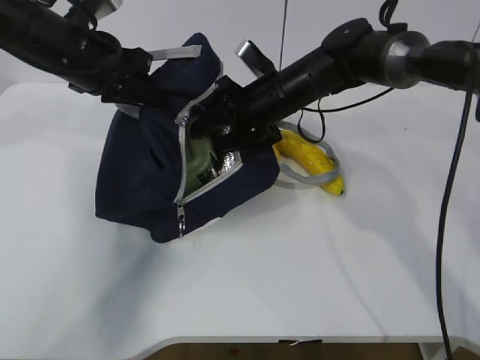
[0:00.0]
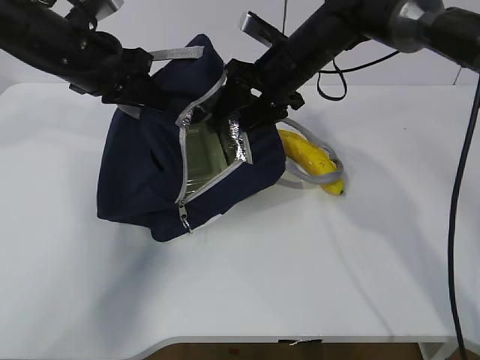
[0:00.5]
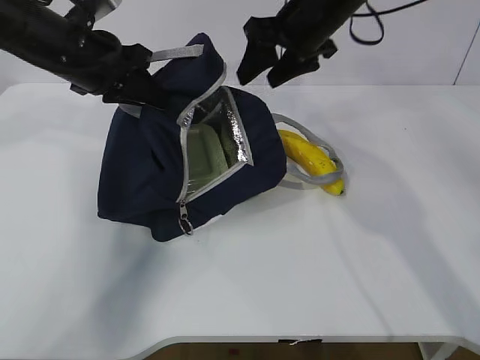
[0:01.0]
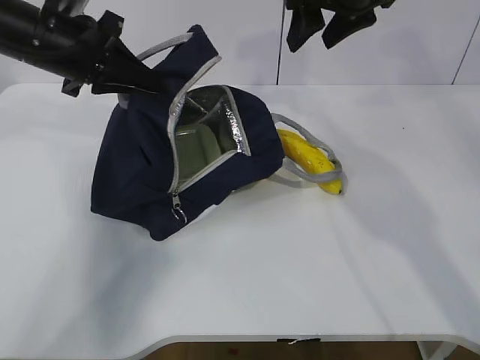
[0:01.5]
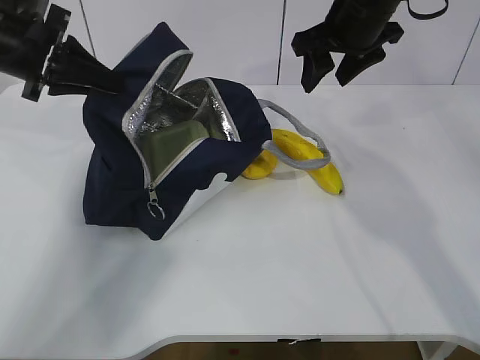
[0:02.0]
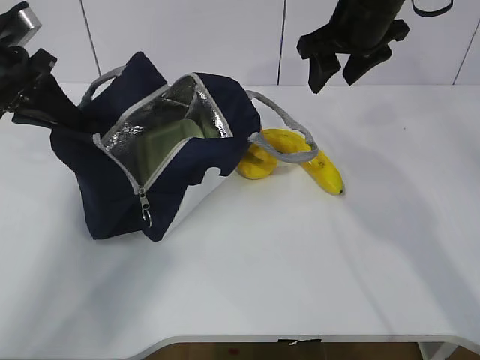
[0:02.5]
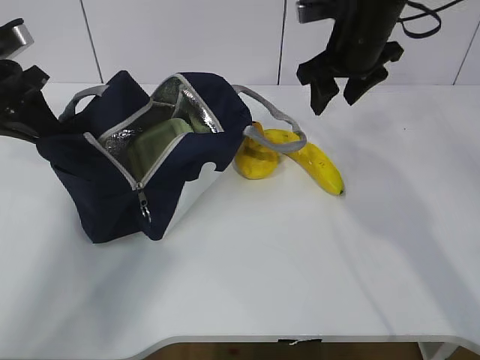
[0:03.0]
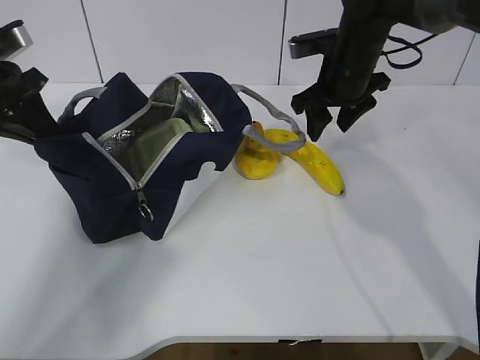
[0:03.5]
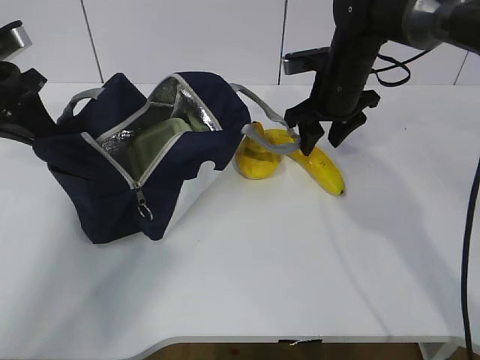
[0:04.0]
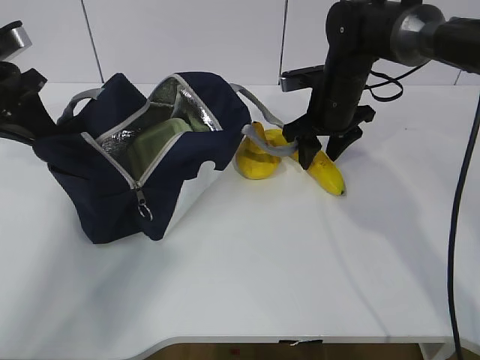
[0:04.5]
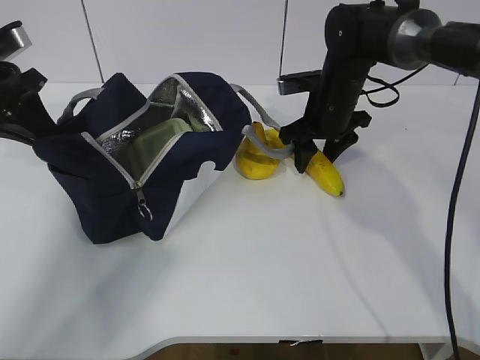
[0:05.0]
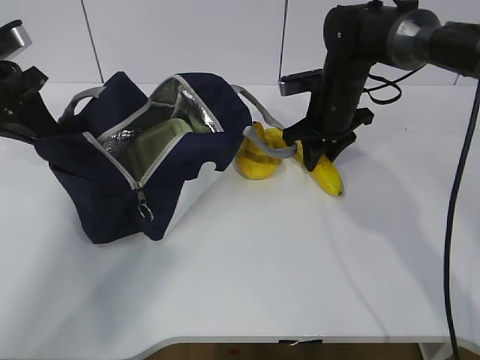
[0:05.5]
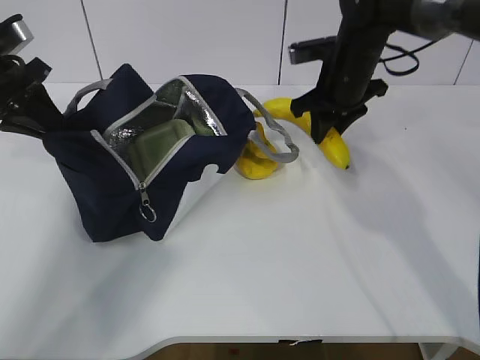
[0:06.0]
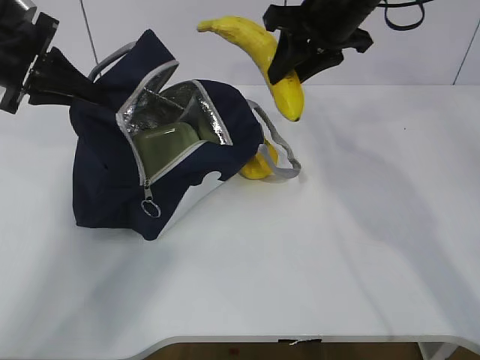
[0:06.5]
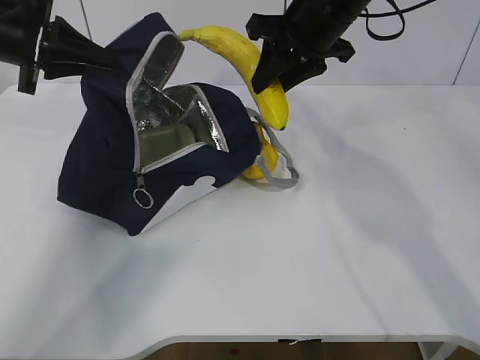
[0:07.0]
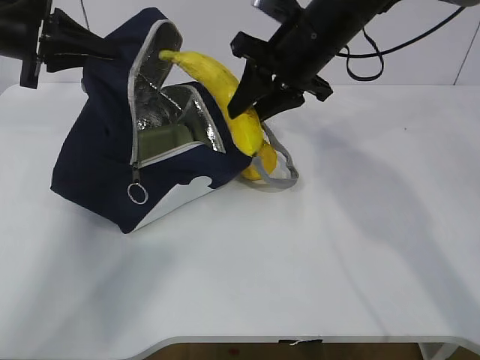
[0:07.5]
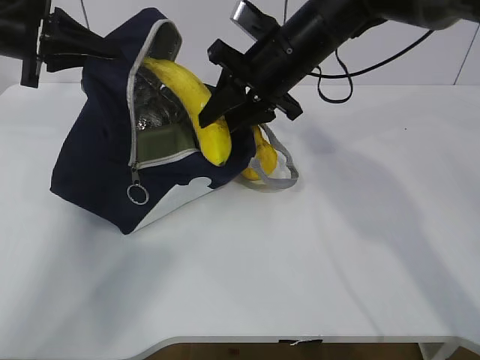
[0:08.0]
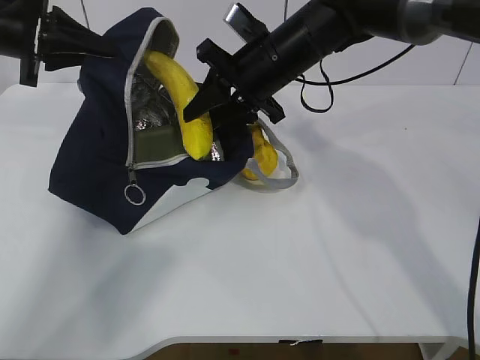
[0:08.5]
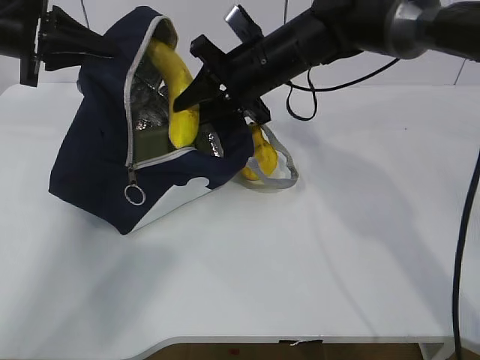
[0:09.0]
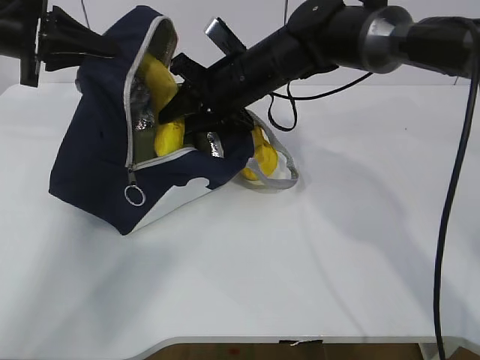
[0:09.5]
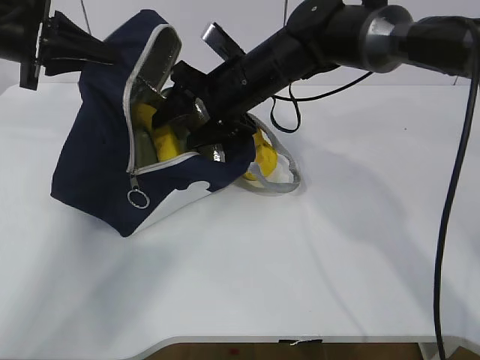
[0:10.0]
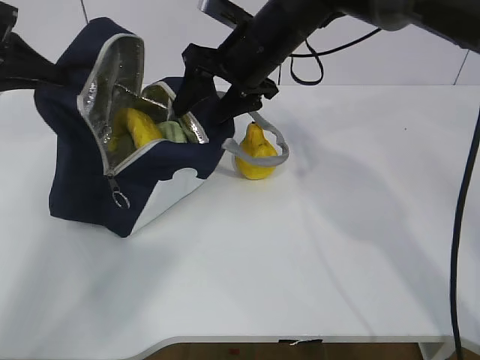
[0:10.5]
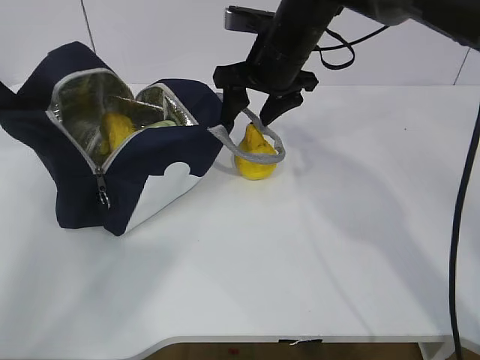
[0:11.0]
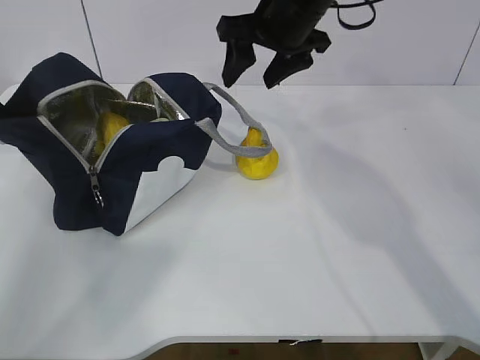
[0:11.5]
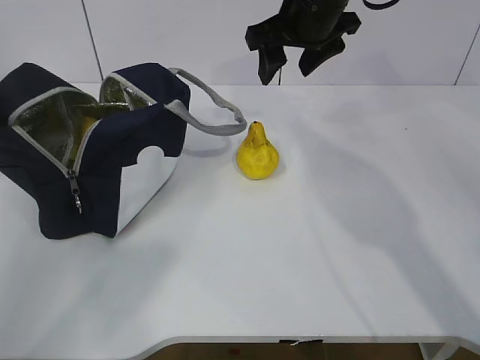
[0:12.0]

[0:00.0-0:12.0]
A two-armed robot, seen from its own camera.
Step, 0:02.0 to 0:05.0: Place it into the bag with your right hand.
Step, 0:05.5 to 0:09.5: Grab the pear with your right hand.
Step, 0:10.0 to 0:11.5: Secure the lunch bag with your left hand.
0:00.0 to 0:02.0: The right gripper is displaced upward and to the right by approximately 15 cm; the left gripper shifts roughly 5 cm to the left.
0:02.0 to 0:04.0: The right gripper is displaced downward by about 10 cm. The left gripper moves some 5 cm.
0:04.0 to 0:06.0: The right gripper closes.
0:06.0 to 0:08.0: The right gripper heads to the left, covering roughly 10 cm.
0:08.0 to 0:10.0: The right gripper moves about 5 cm, and opens up.
0:10.0 to 0:12.0: The right gripper travels upward and to the right by approximately 10 cm. The left gripper goes some 15 cm to the left.

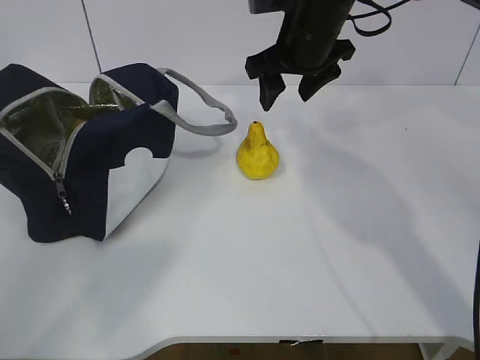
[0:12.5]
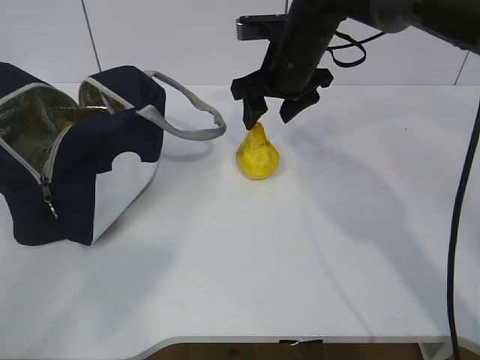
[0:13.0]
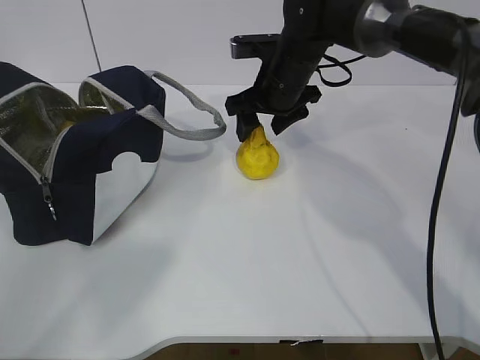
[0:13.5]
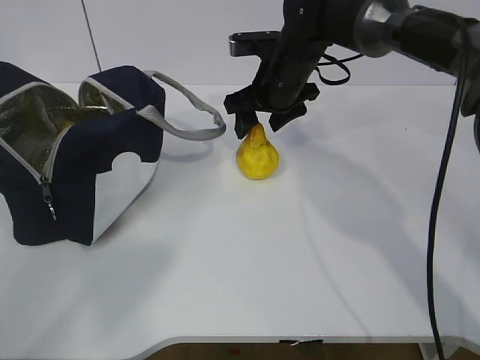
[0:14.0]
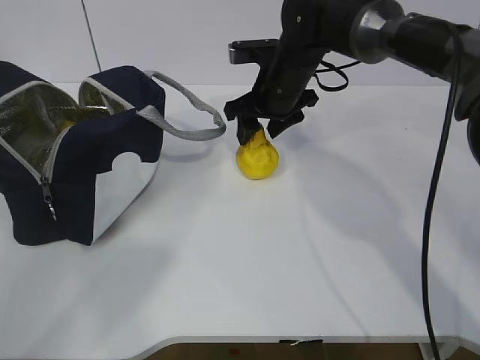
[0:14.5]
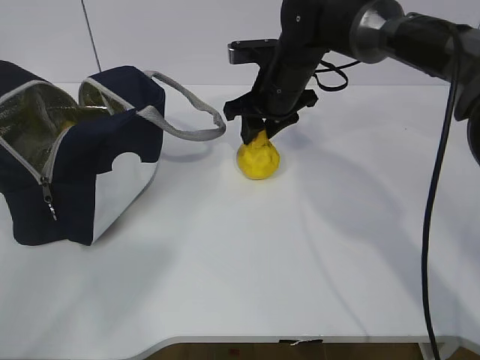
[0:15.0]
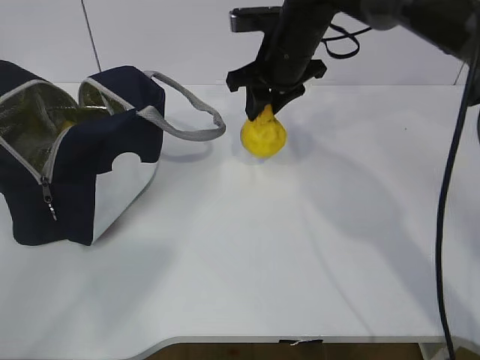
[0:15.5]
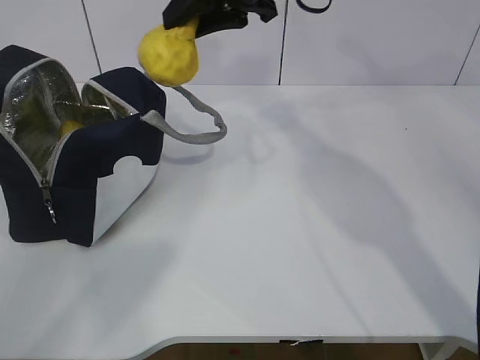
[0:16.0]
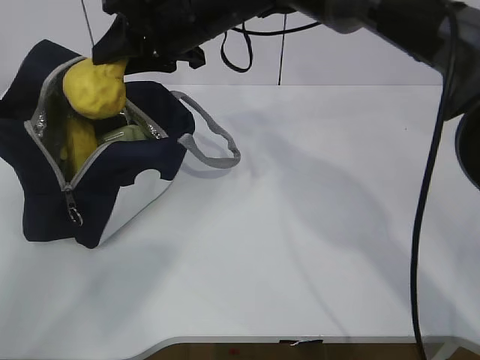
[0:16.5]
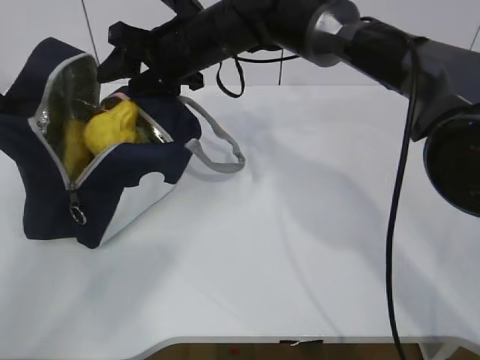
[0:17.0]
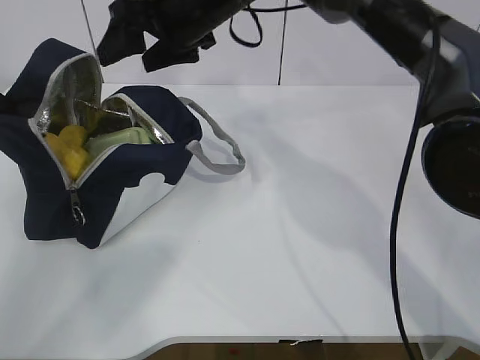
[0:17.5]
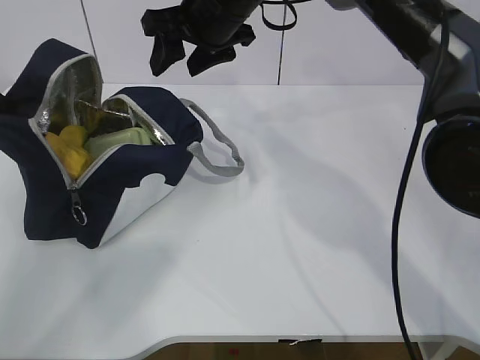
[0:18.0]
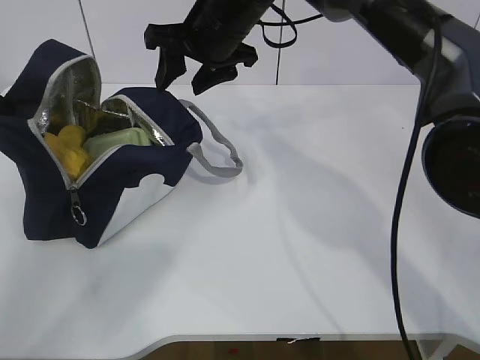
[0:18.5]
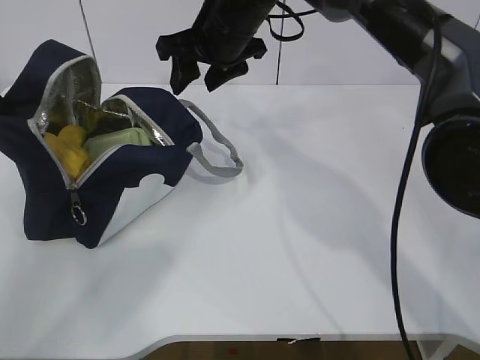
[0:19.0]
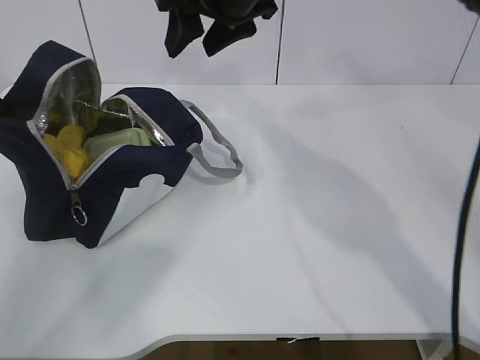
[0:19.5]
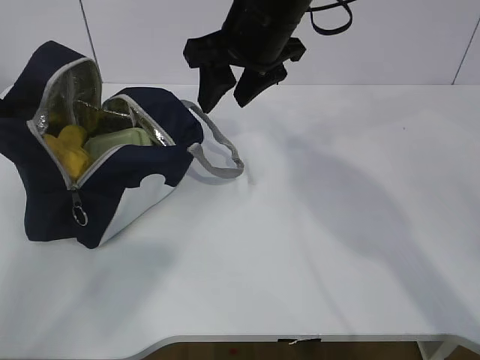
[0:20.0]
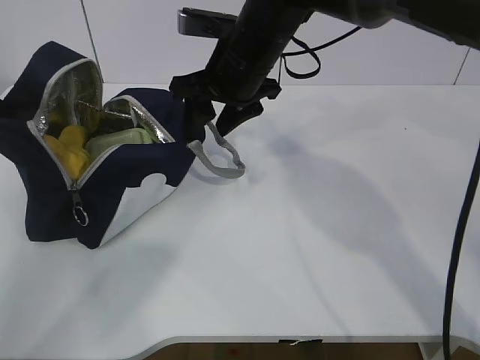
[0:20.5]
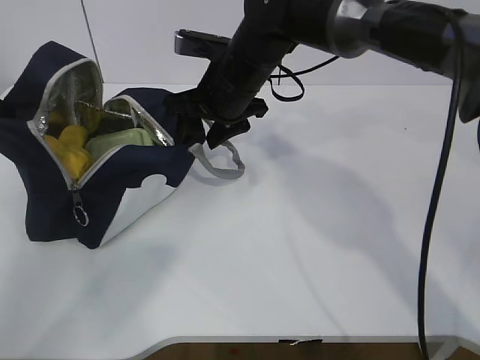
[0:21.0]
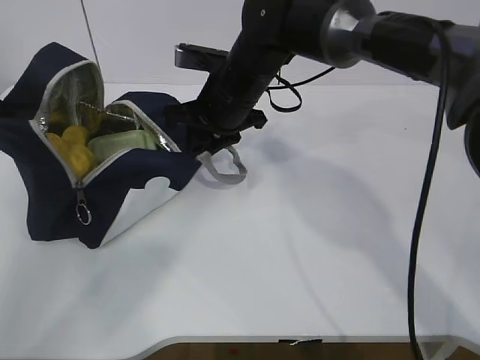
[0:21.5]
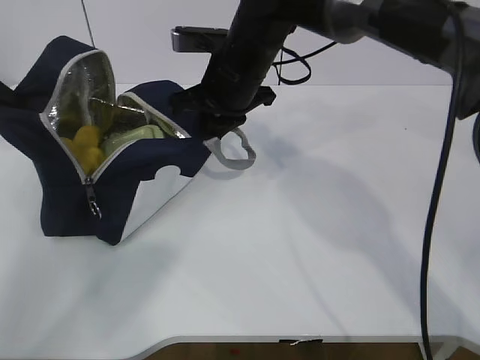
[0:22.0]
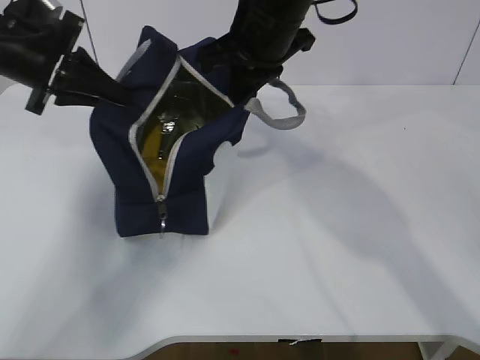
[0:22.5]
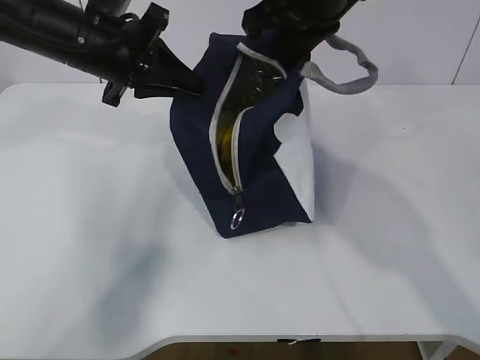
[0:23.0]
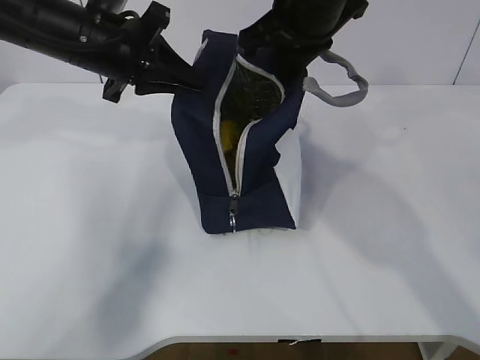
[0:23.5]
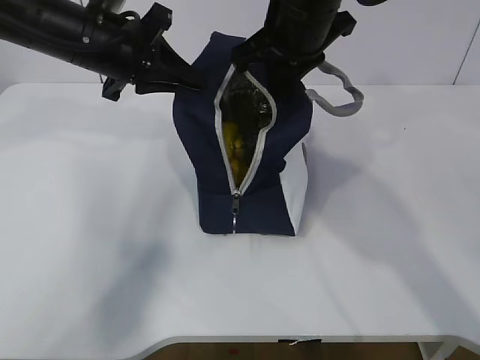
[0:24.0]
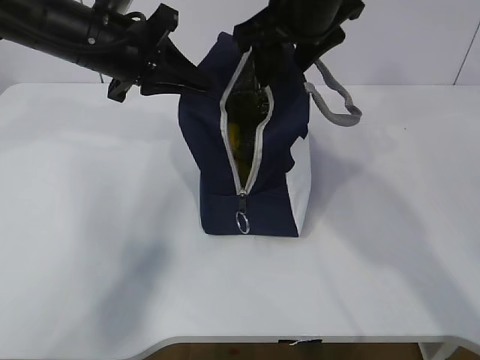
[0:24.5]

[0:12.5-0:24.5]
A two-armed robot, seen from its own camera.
Step, 0:12.5 to 0:15.0: Grab the lunch bag with your right hand.
Step, 0:15.5 to 0:18.5: Move the lunch bag to the right.
0:12.5 to 0:14.5: The right gripper goes roughly 10 cm downward.
0:14.5 to 0:16.5: The right gripper shifts roughly 15 cm upward and to the left, and closes its fingers.
0:18.5 to 0:20.5: The right gripper moves approximately 5 cm upward and comes back.
0:20.5 to 0:22.5: The left gripper goes some 15 cm to the right. The right gripper moves some 5 cm, and closes.
0:22.5 to 0:24.5: The right gripper opens its fingers. Meanwhile the left gripper travels to the right by some 10 cm.

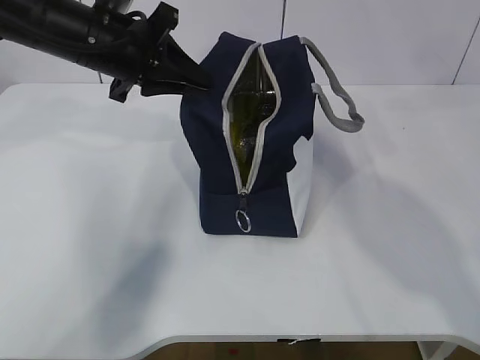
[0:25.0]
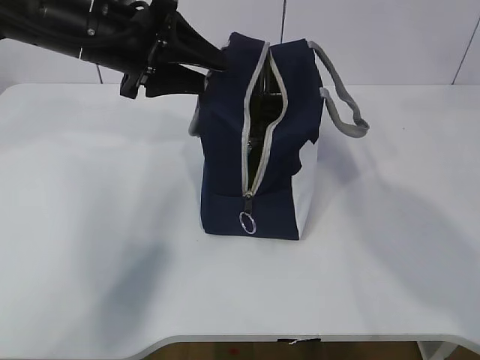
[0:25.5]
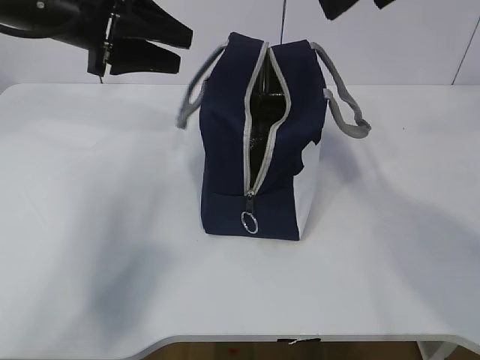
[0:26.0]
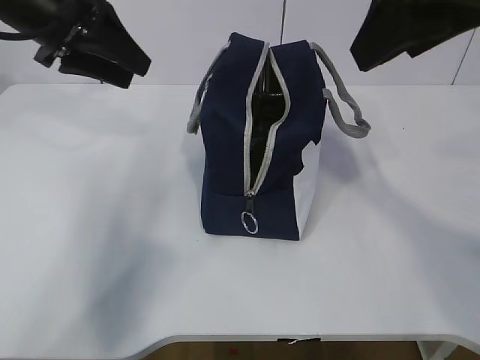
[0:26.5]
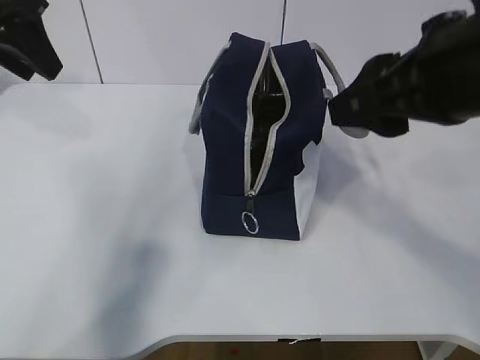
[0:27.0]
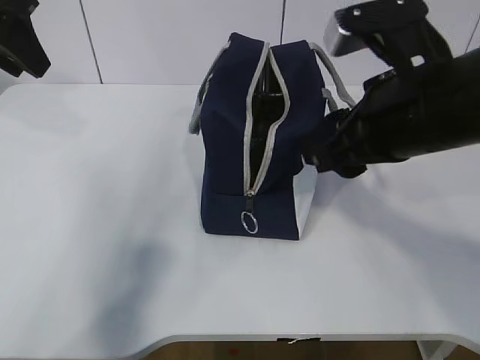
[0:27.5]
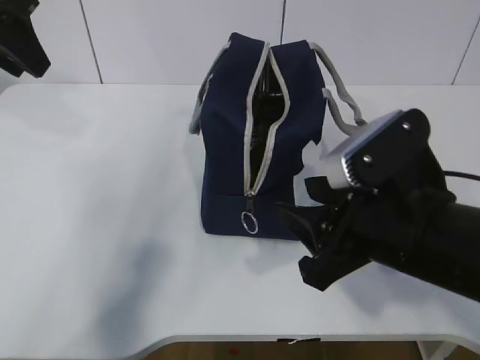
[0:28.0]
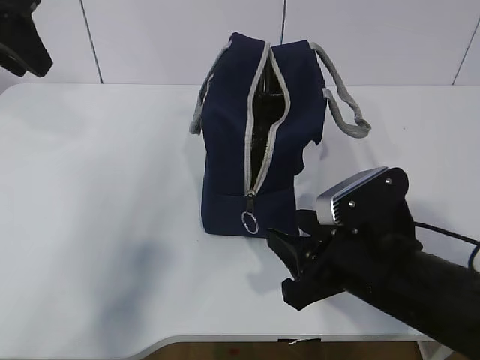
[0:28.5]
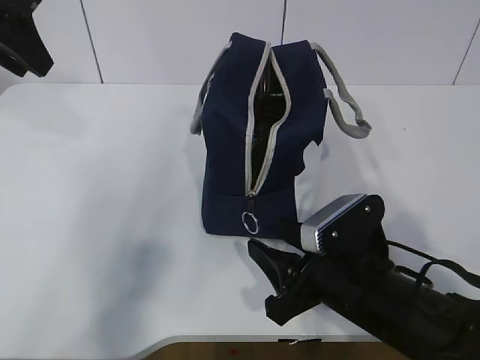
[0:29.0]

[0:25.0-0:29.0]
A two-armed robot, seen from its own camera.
0:25.0 to 0:27.0: The left gripper travels to the left and upward by about 10 cm, and opens up, while the right gripper heads backward and downward, covering roughly 15 cm.
0:27.0 to 0:29.0: The right gripper shifts roughly 25 cm downward.
